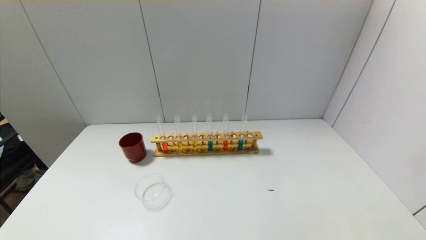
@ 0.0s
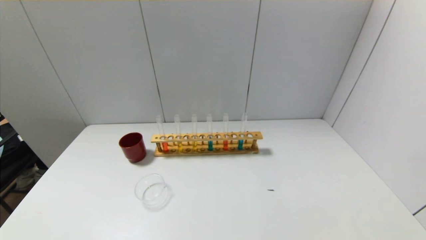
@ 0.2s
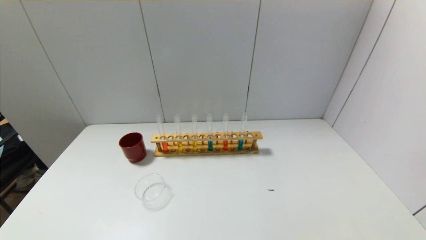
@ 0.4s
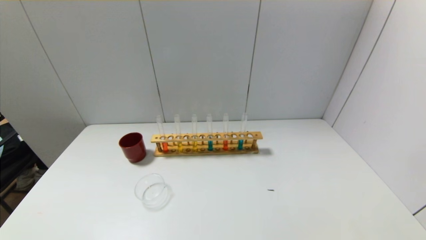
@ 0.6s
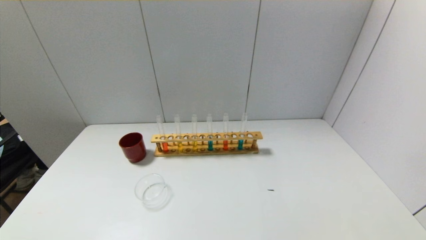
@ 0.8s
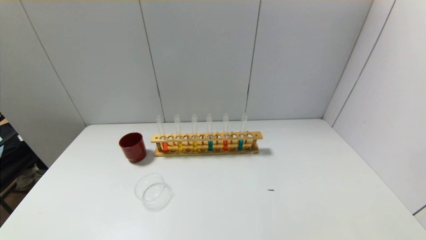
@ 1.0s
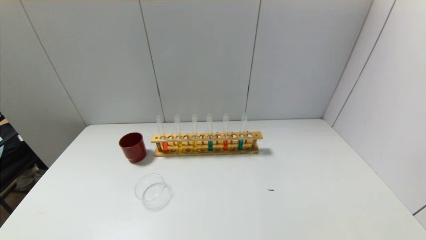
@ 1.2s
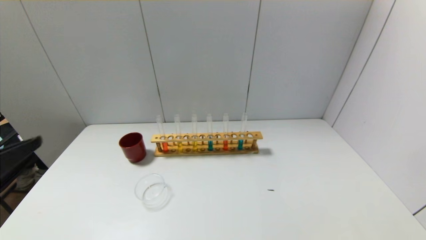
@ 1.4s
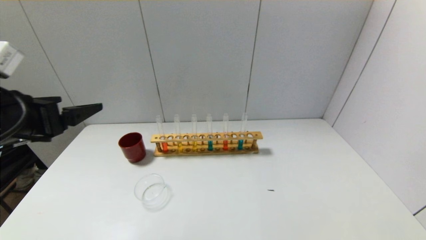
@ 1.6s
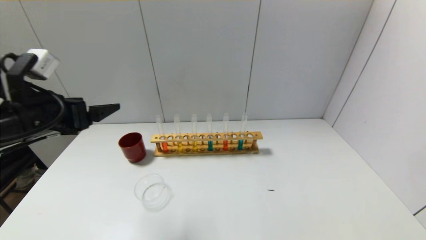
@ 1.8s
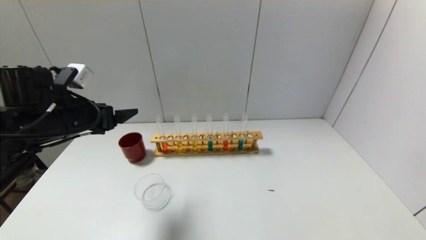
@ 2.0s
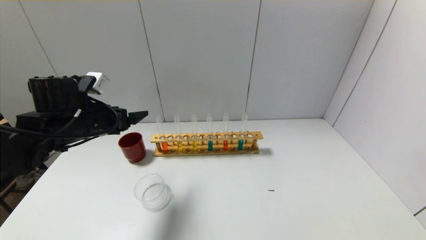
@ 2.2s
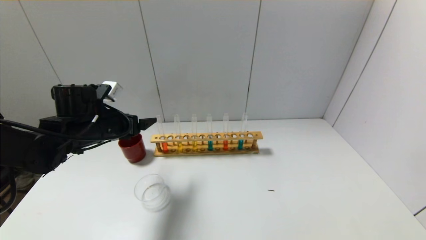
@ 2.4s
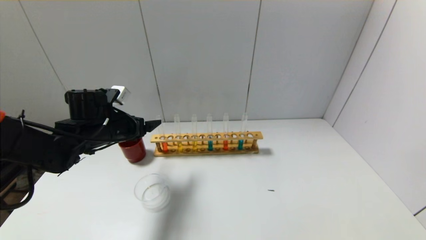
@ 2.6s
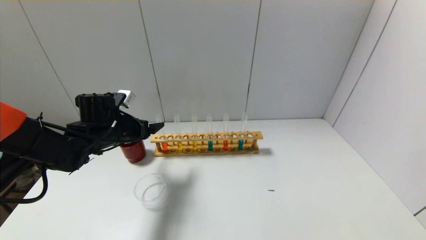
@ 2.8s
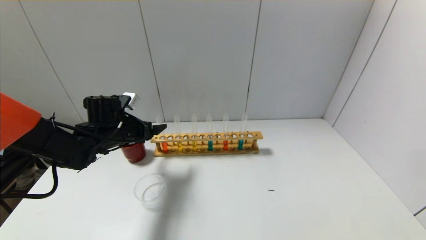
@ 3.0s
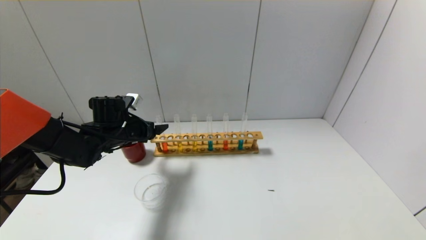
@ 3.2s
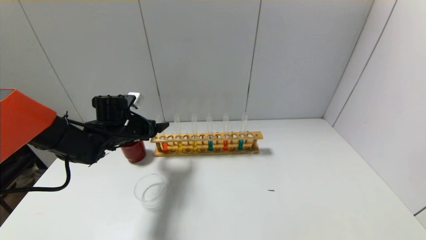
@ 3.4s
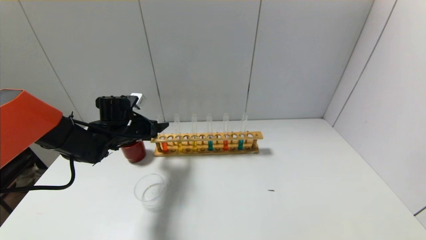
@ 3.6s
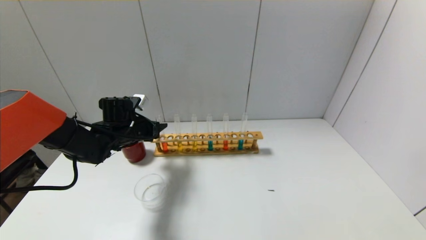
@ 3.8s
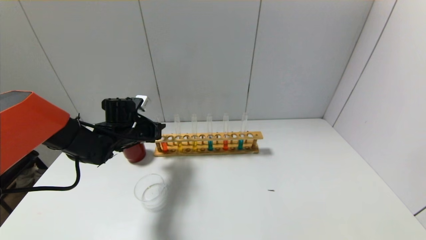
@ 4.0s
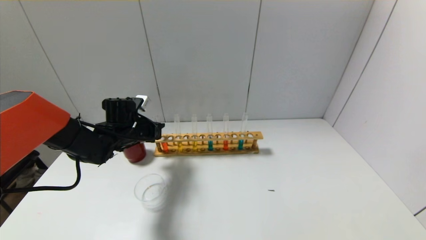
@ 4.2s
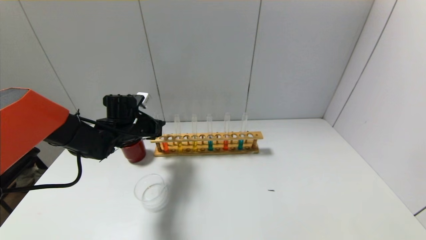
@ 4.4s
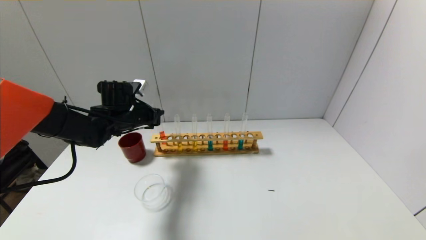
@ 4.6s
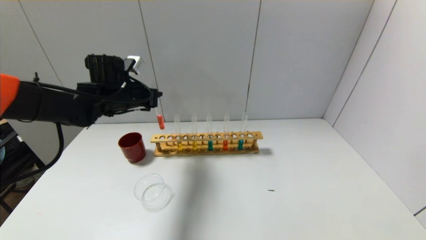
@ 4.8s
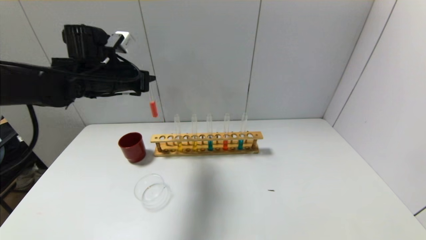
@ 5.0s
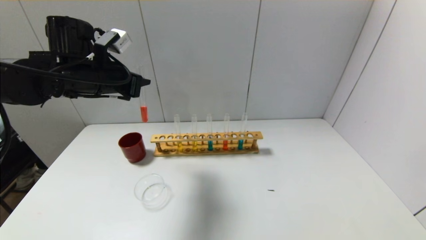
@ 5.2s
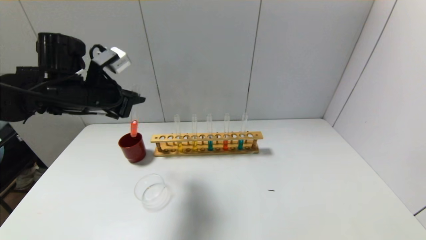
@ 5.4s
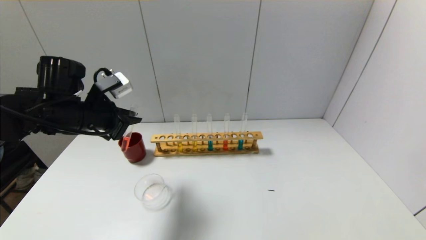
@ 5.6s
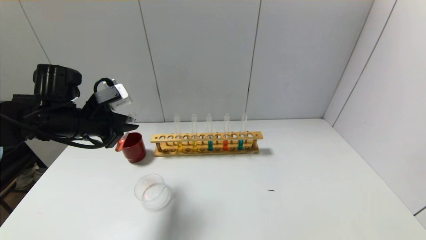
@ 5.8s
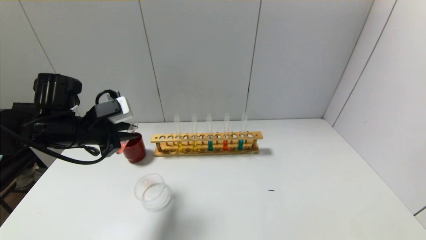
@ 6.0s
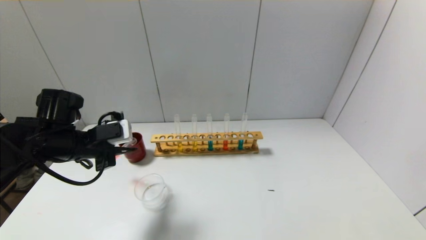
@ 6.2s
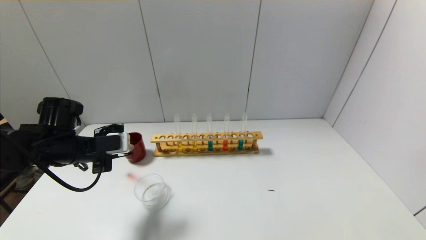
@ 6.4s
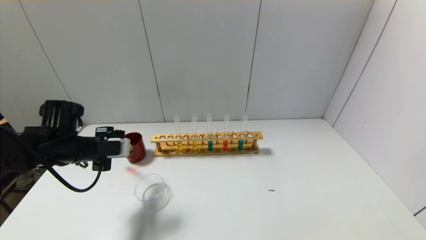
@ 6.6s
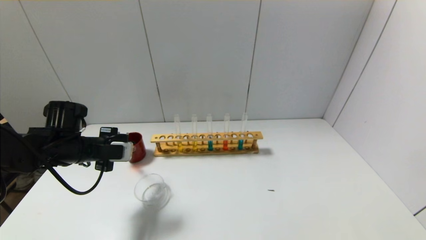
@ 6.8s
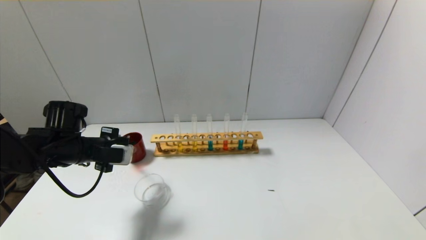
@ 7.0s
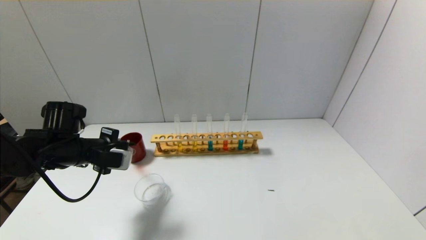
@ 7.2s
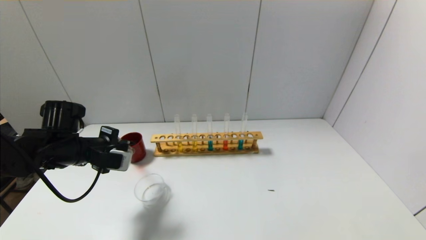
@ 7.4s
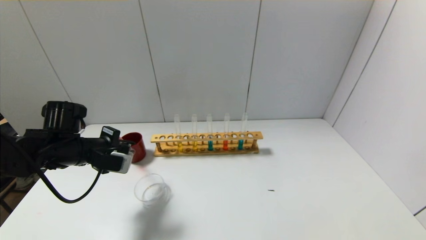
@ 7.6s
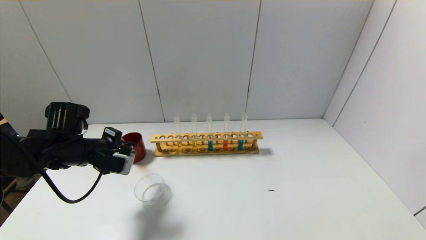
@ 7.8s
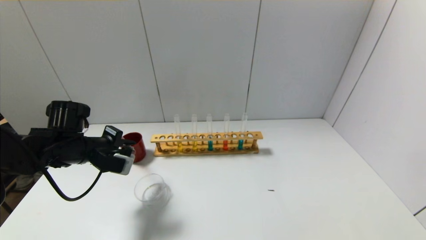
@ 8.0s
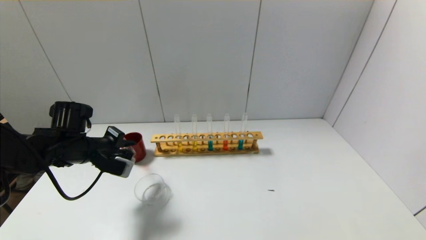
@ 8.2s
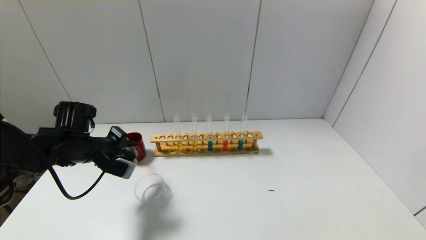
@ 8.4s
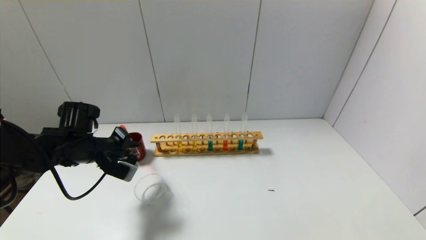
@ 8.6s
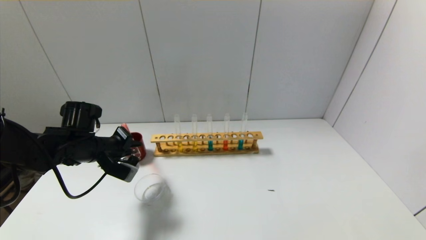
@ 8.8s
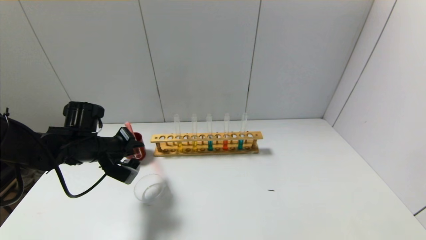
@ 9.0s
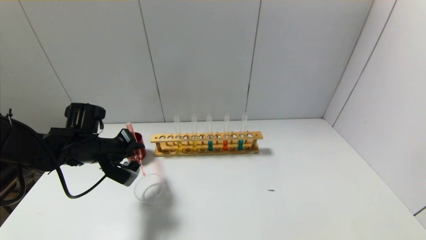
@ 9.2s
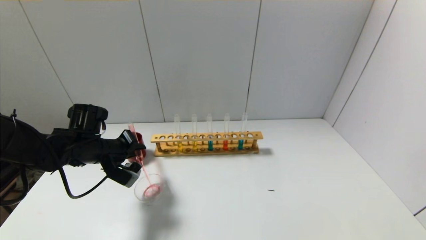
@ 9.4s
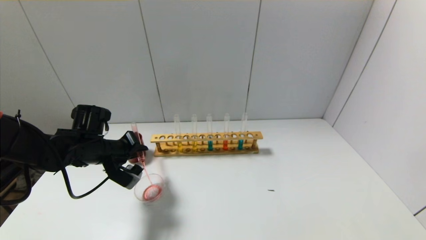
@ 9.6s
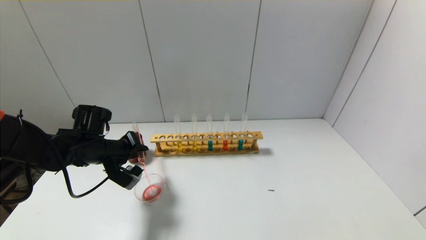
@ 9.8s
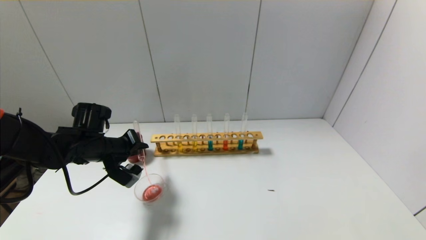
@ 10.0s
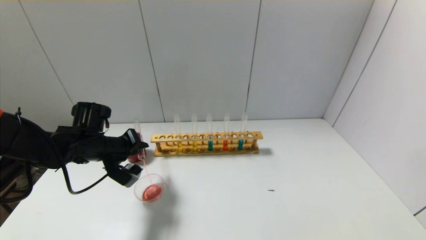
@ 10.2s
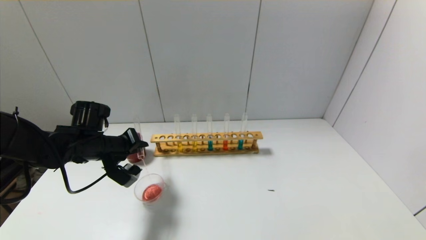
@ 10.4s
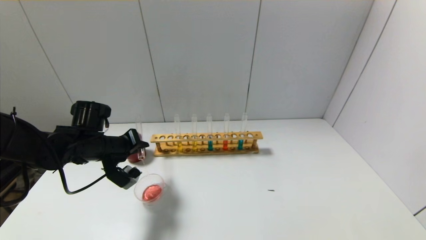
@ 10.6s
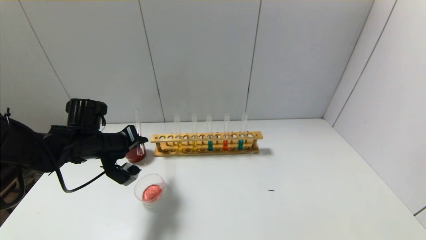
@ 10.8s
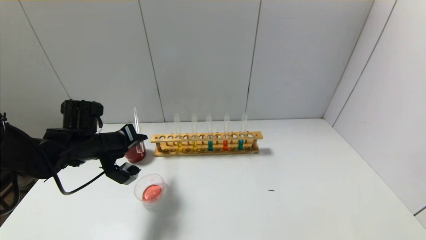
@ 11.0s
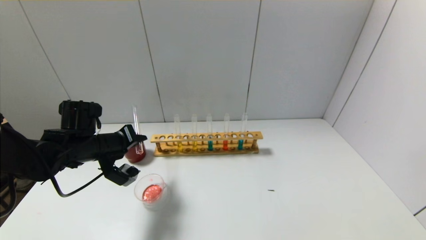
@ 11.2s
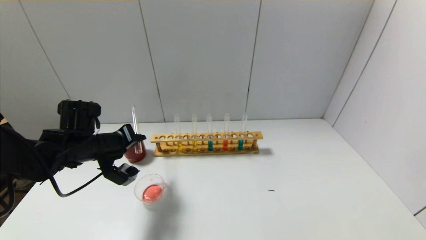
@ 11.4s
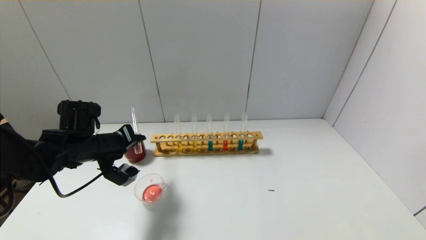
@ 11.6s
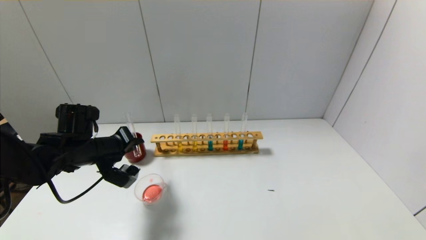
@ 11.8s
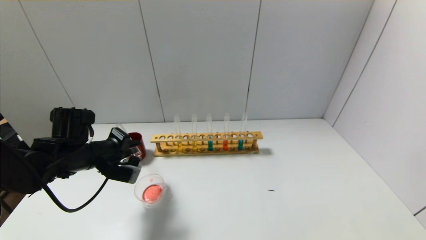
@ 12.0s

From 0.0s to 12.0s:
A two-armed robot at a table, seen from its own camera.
Step, from 0.0s to 4.0s: Grasp the red reagent with the left gripper.
From 0.0s to 1.6s: The left gripper heads forward and upward, covering about 30 cm.
From 1.6s to 3.0s: The left gripper heads forward and downward, covering some 25 cm.
From 3.0s to 4.4s: The left gripper closes its fingers.
From 4.4s to 6.0s: The left gripper shifts approximately 15 cm backward, upward and to the left.
From 6.0s to 7.6s: The left gripper heads downward, covering roughly 5 cm.
From 9.0s to 10.4s: The grippers stay close to where they were, moving slightly.

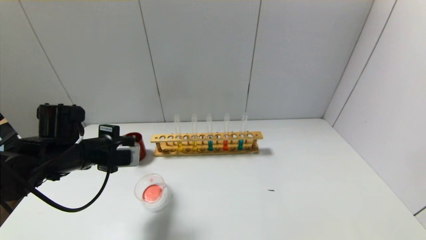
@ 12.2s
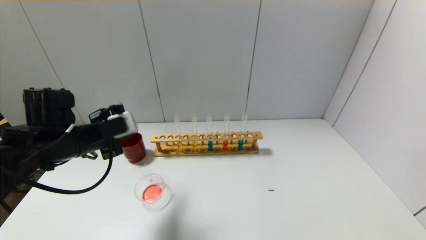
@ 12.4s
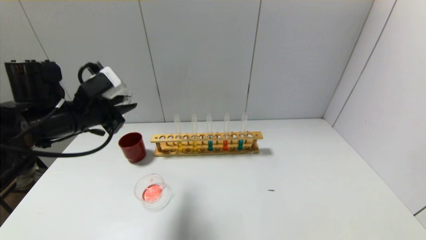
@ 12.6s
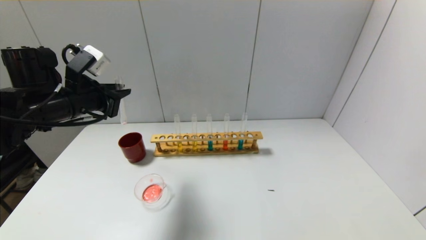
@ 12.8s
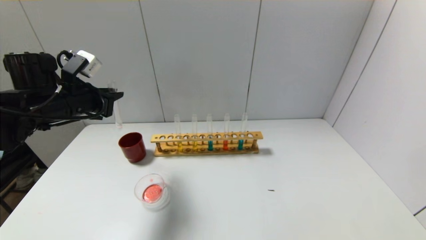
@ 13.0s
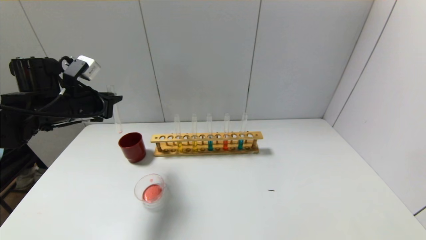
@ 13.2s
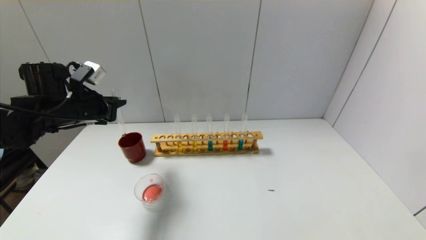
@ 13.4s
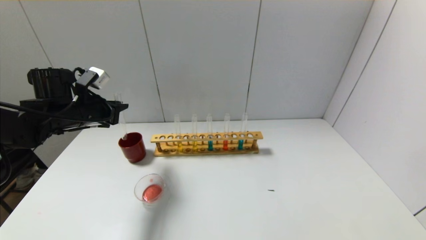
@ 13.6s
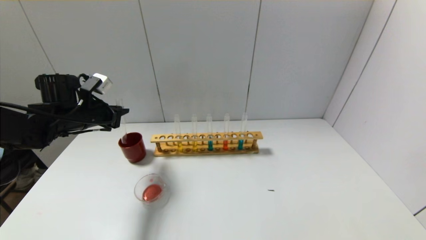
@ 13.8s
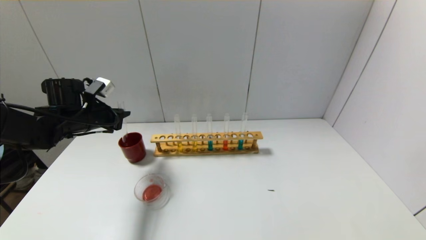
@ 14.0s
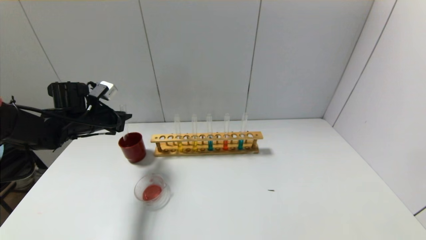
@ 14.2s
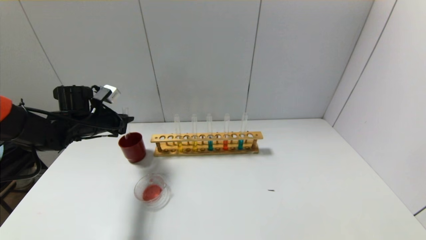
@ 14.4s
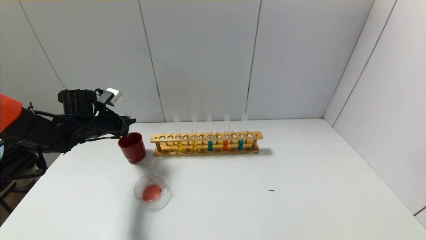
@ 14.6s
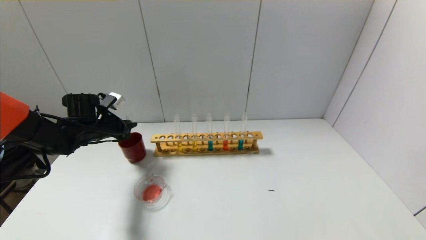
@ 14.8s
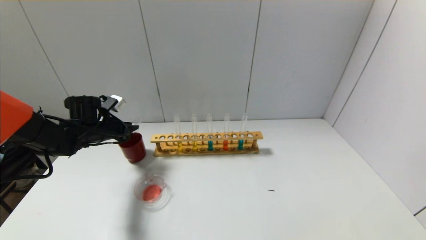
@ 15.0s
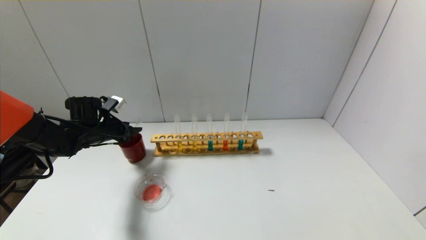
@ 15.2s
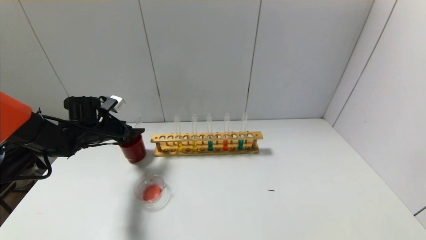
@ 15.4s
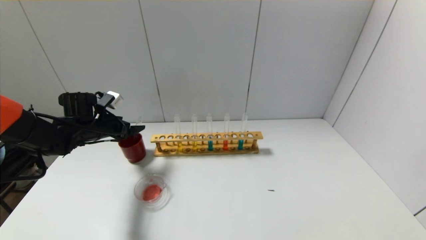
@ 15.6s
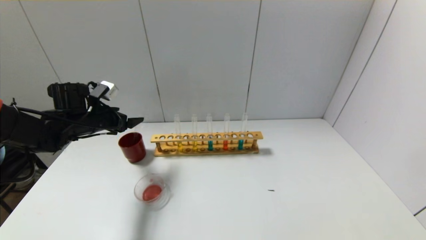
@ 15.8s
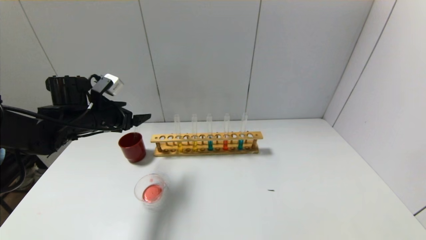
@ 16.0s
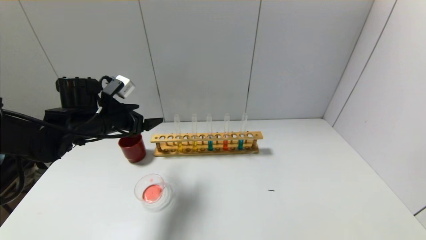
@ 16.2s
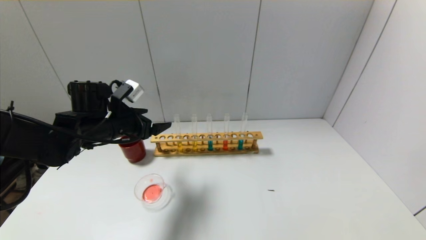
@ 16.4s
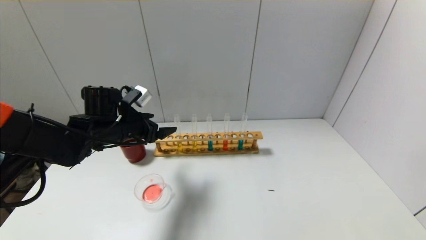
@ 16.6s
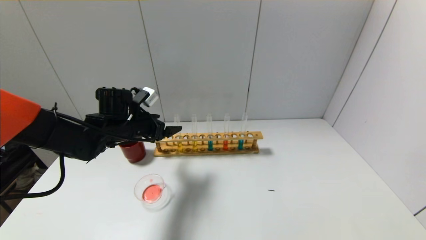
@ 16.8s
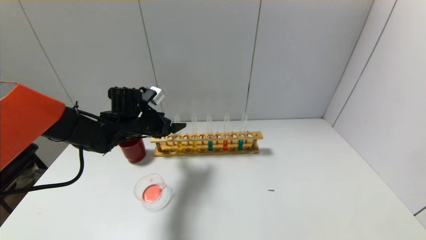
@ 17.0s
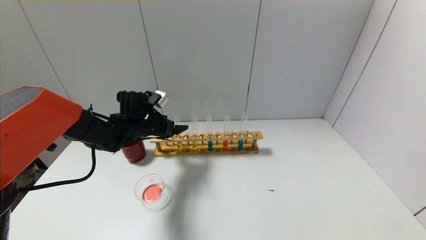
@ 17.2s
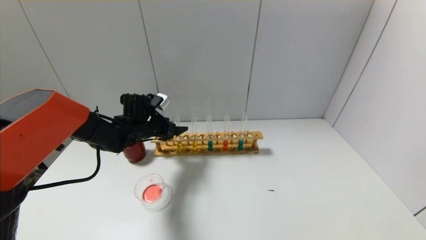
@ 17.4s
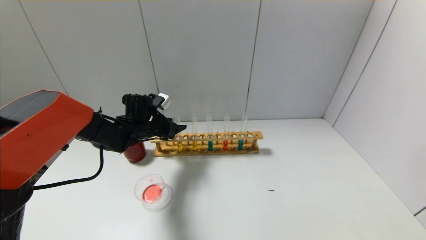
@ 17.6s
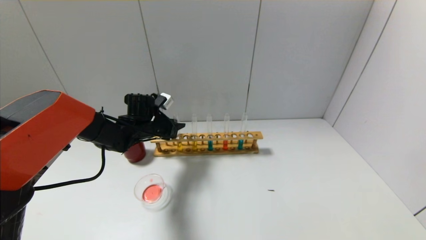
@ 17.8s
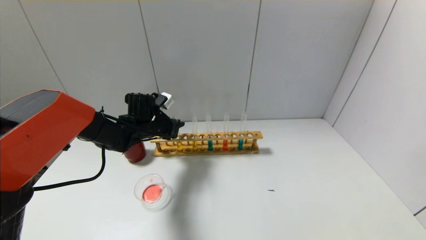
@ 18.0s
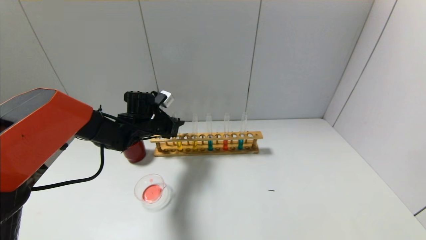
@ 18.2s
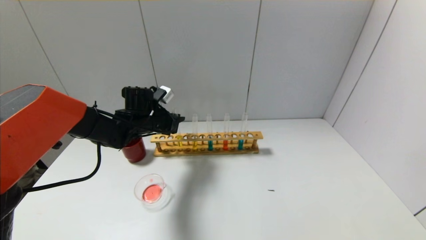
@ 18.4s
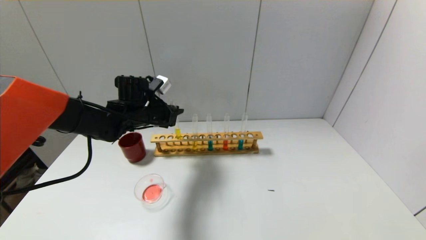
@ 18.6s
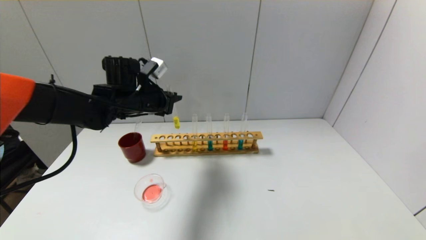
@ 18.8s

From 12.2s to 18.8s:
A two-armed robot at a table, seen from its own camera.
Step, from 12.2s to 15.0s: Place the test tube into the brown cup with the left gripper.
Step, from 15.2s to 18.0s: Grasp the yellow reagent with the left gripper.
From 12.2s to 13.8s: The left gripper goes about 10 cm forward, and moves approximately 10 cm upward and comes back.
From 13.8s to 15.4s: The left gripper goes about 5 cm downward, and opens its fingers.
From 15.4s to 17.2s: The left gripper shifts roughly 10 cm to the right.
From 17.2s to 18.8s: The left gripper is displaced upward by about 10 cm, and closes its fingers.
